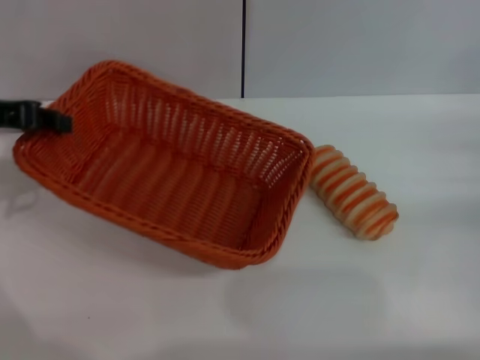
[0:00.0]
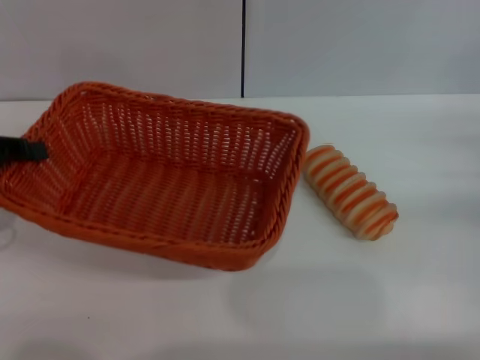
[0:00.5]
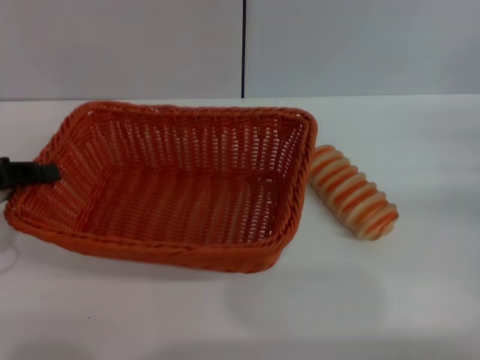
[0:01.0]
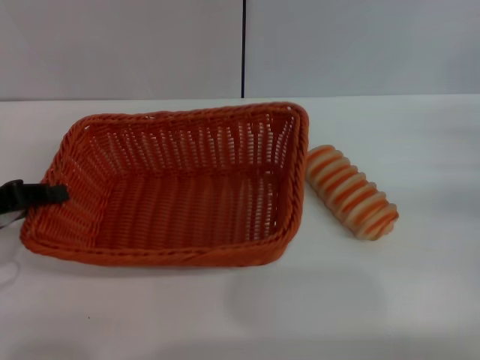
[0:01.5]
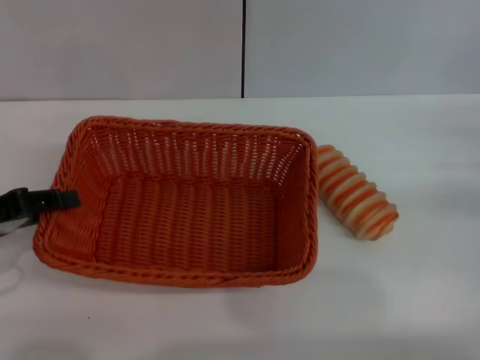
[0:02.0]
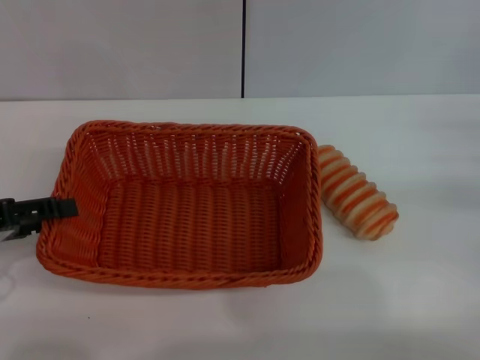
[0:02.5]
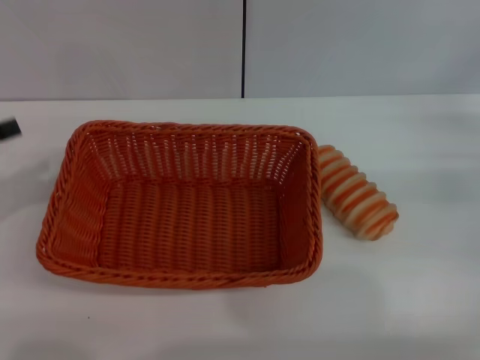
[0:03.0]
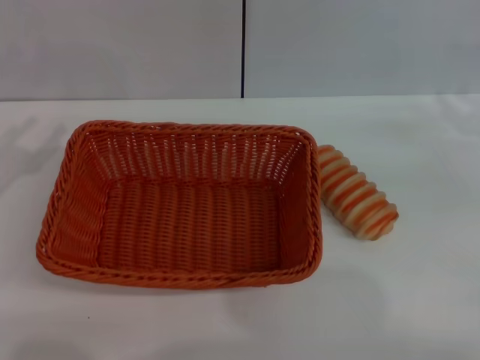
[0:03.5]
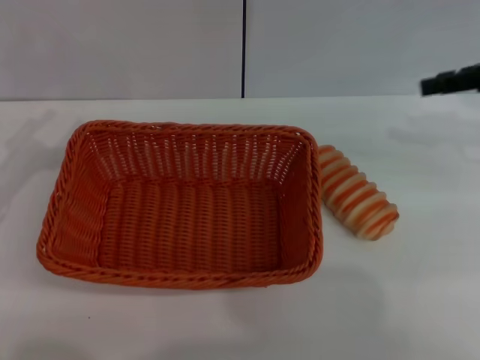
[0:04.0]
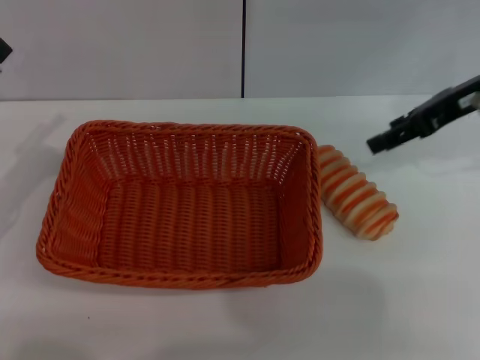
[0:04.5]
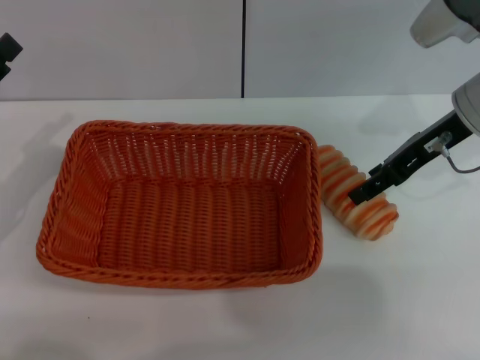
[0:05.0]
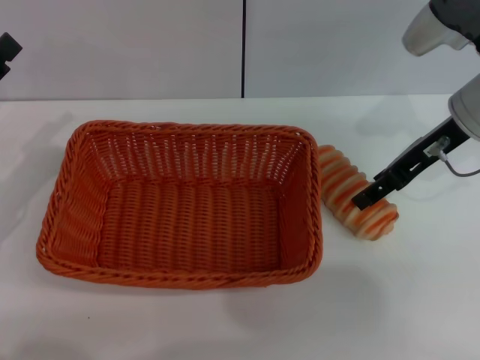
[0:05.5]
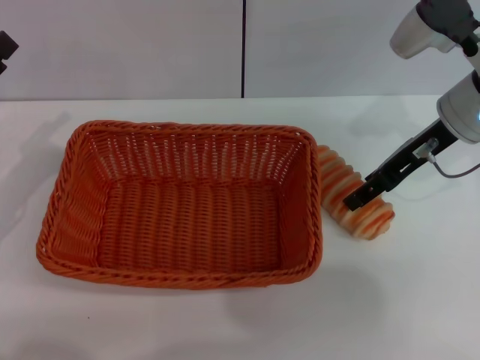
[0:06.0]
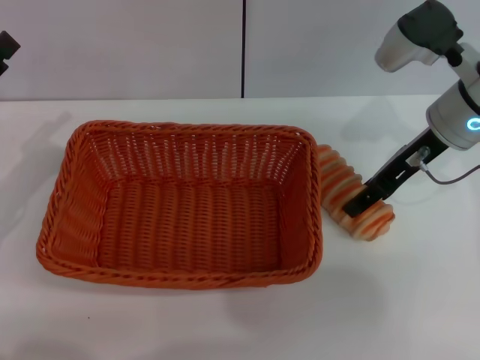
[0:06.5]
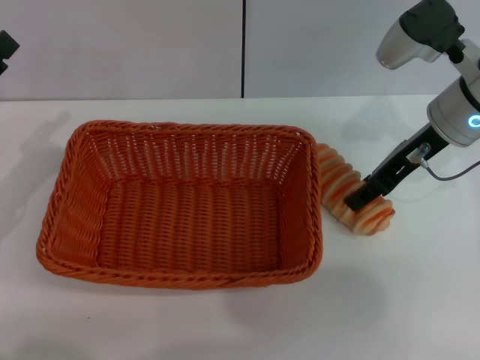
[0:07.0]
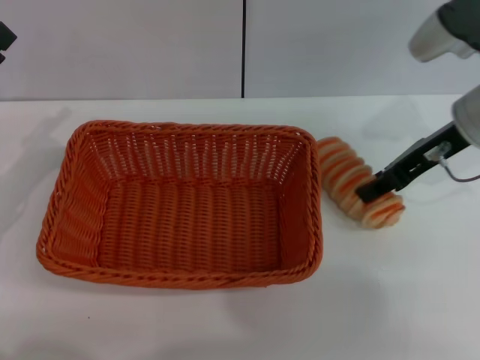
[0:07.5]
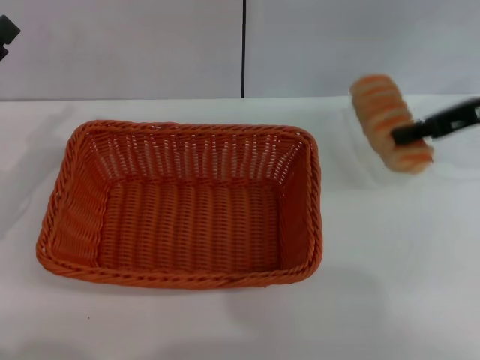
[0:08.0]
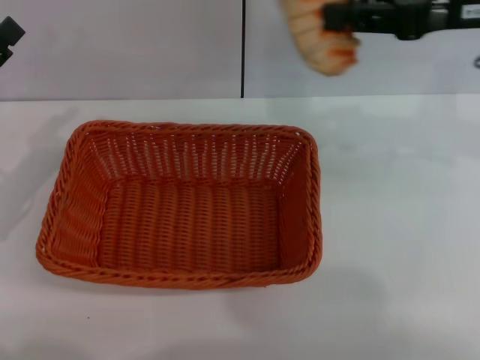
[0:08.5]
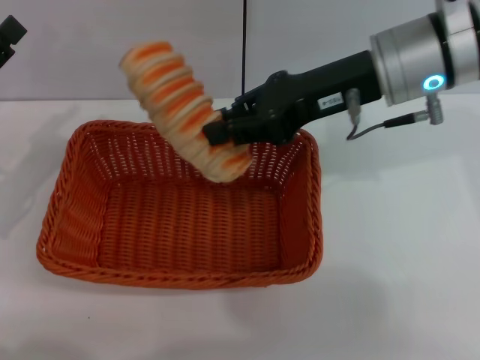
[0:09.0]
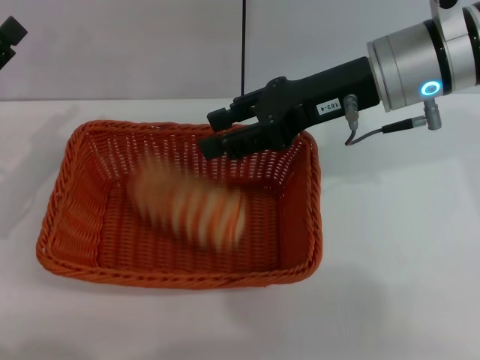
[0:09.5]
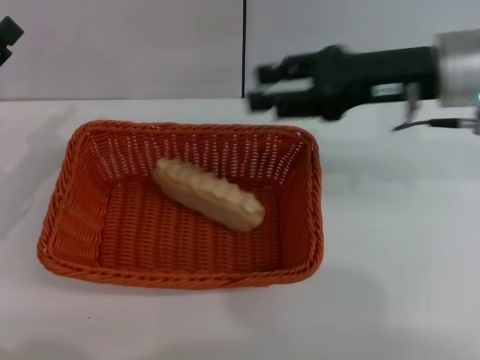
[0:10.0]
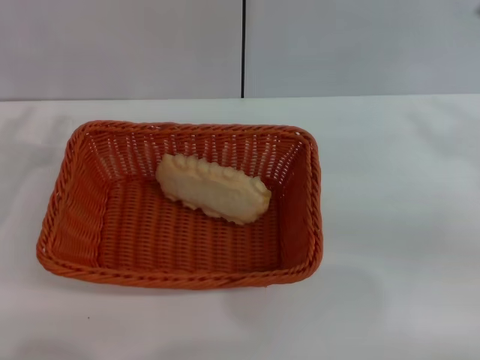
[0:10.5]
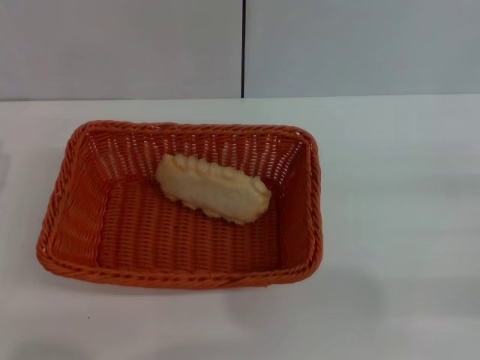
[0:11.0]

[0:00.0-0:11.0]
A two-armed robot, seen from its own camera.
Step, 0:00.0 to 0:02.5: Place the light basket in the center of view with the left gripper.
Step, 0:03.0 to 0:08.0: Pick up the long bread with the right gripper.
Step, 0:08.5 to 0:09.5: Place the long bread into the light basket with the right gripper.
0:00.0 to 0:02.0: The left gripper goes approximately 10 cm backward and downward.
0:02.0 to 0:03.5: The left gripper heads to the left, covering roughly 5 cm, and opens its fingers.
0:03.5 to 0:05.5: The right gripper moves to the left, about 15 cm.
0:05.5 to 0:07.5: The right gripper closes its fingers.
0:07.5 to 0:09.0: The right gripper goes some 10 cm to the left and upward, and closes.
0:09.0 to 0:11.0: The left gripper is displaced backward and downward by approximately 10 cm. Meanwhile the right gripper moves to the right, backward and downward, about 30 cm, and opens its fingers.
